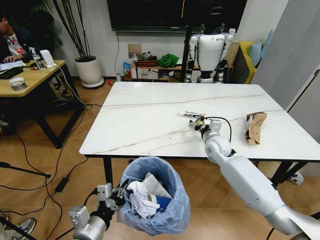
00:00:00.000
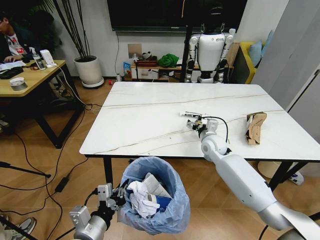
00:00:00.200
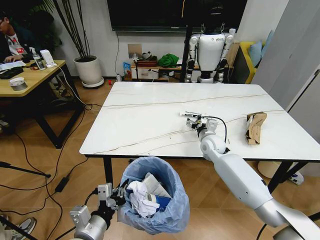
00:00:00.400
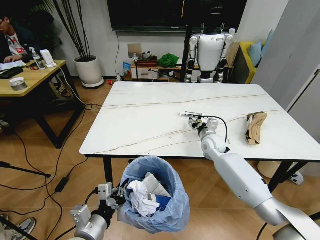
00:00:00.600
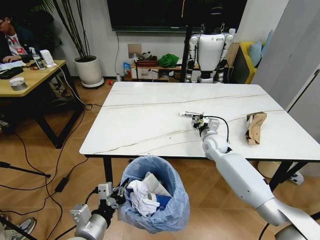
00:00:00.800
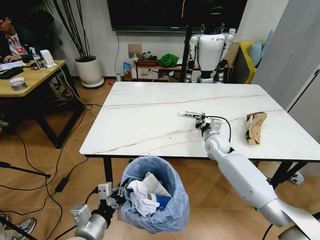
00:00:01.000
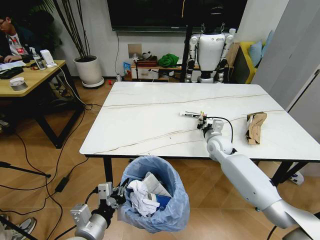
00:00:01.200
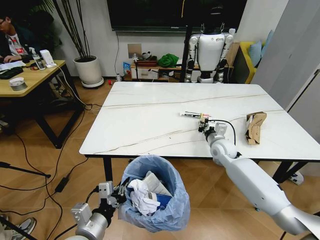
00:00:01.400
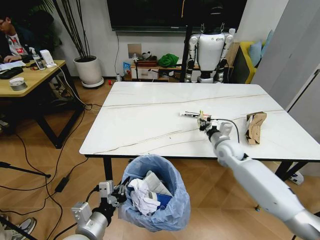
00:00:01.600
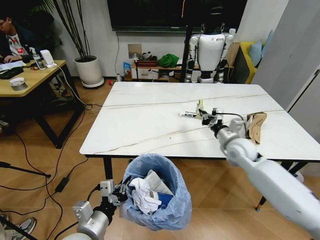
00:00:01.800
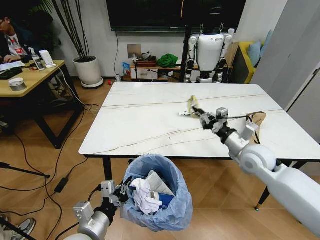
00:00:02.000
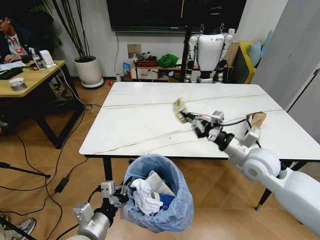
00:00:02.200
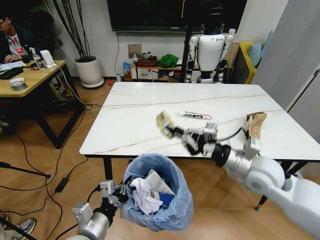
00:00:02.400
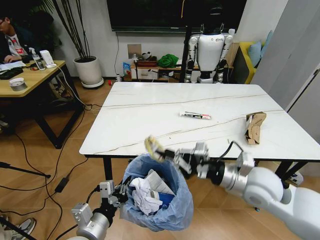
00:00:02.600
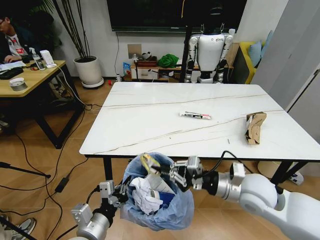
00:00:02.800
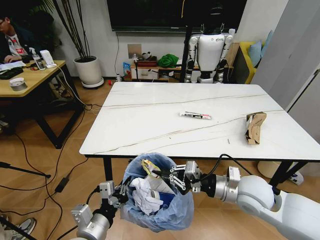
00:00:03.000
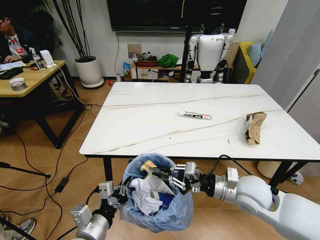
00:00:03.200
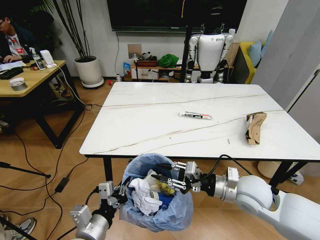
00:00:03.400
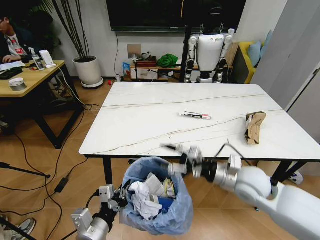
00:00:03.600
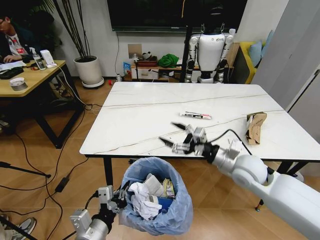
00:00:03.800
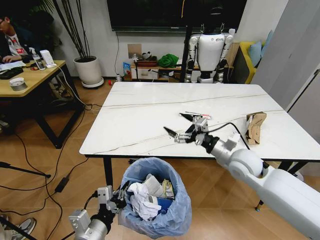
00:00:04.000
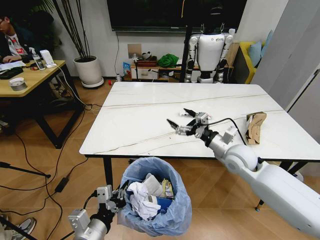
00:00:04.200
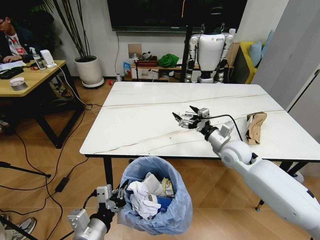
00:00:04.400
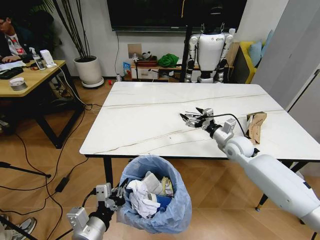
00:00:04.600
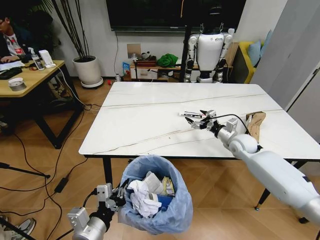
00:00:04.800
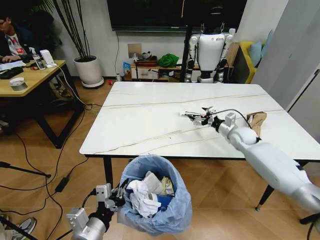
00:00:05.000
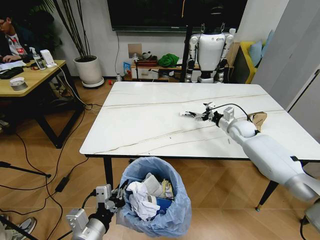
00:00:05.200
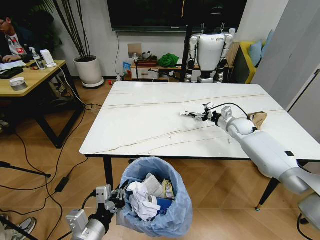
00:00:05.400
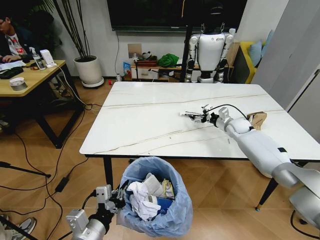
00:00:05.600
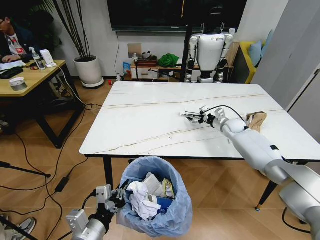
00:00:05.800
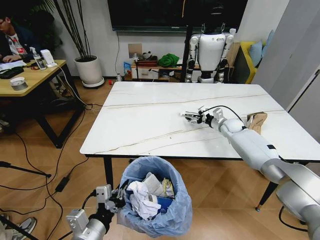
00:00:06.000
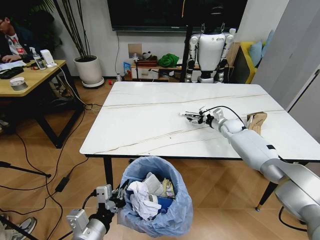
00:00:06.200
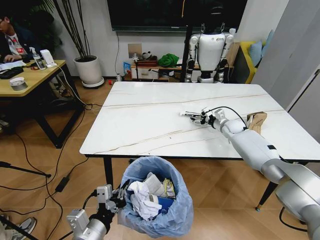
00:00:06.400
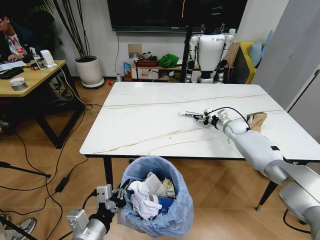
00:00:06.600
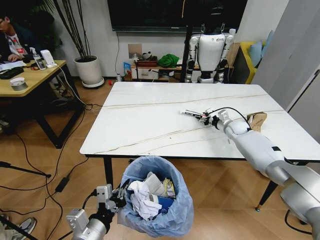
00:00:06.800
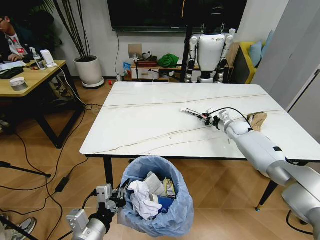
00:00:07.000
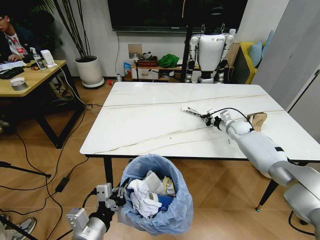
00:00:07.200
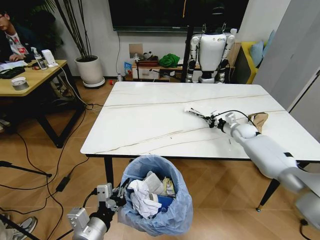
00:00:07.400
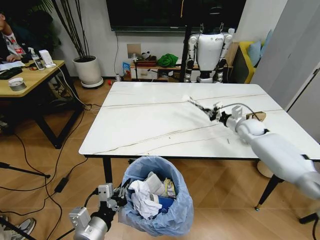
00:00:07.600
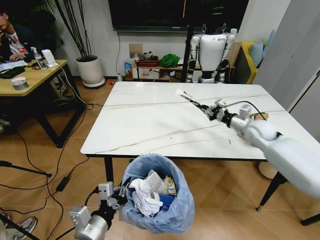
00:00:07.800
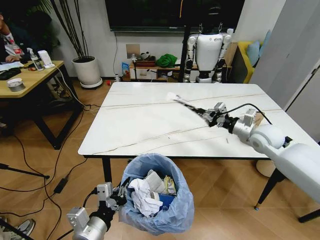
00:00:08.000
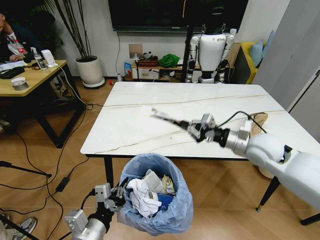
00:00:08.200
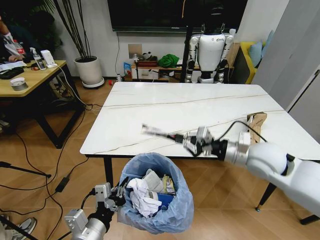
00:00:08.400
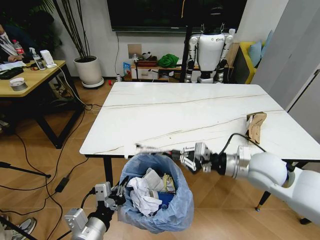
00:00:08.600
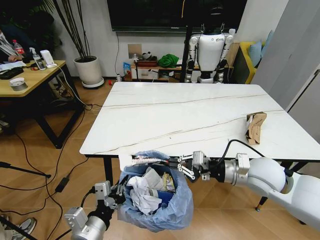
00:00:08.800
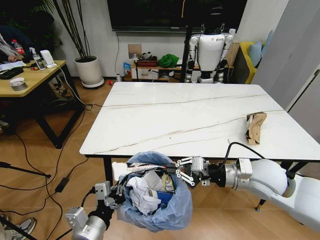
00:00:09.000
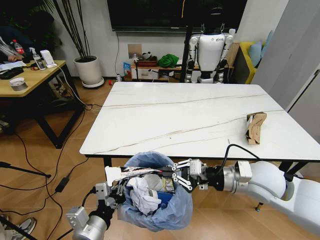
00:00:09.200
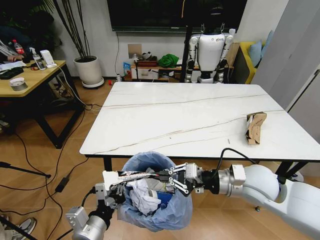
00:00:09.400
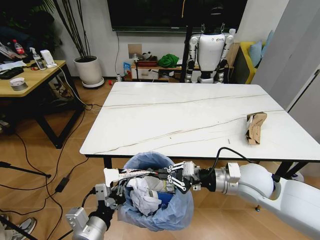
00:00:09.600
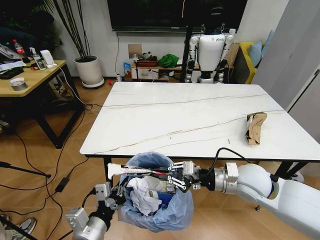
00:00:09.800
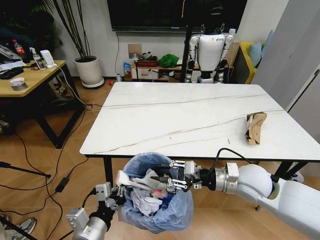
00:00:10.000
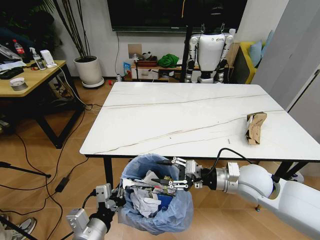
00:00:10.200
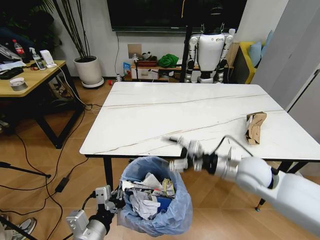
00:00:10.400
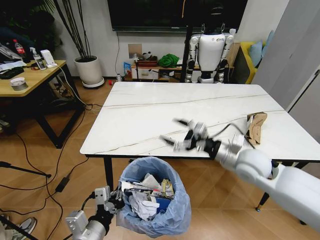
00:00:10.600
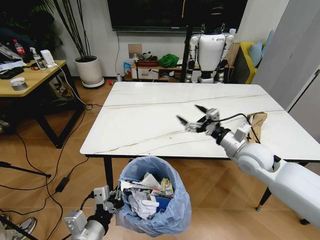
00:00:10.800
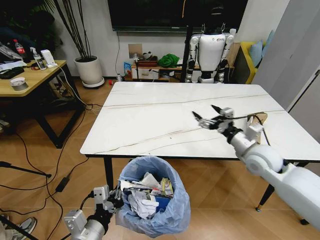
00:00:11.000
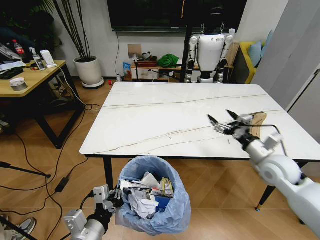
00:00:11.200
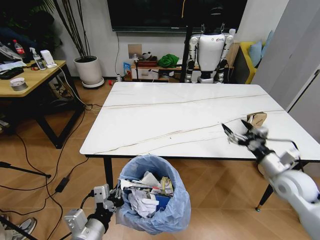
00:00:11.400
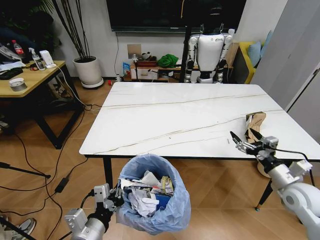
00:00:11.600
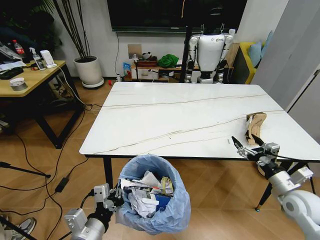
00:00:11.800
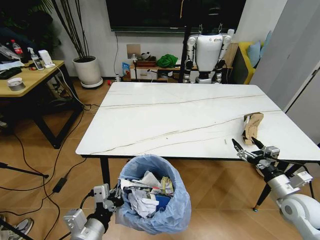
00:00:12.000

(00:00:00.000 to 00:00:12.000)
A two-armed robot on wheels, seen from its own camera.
Task of the whole recording: Pick up the trash bin and place the trash from the table into it.
00:00:00.000 - 00:00:01.600: The right gripper ends up roughly 5 cm from where it was, and closes up.
00:00:01.600 - 00:00:03.000: The right gripper goes about 20 cm backward.
00:00:03.000 - 00:00:04.400: The right gripper goes approximately 15 cm forward, and opens.
00:00:04.400 - 00:00:06.000: The right gripper goes approximately 20 cm forward and to the right.
00:00:06.000 - 00:00:07.600: The right gripper heads backward, covering approximately 5 cm, and closes up.
00:00:07.600 - 00:00:09.000: The right gripper is displaced backward and to the left by about 30 cm.
00:00:09.000 - 00:00:10.400: The right gripper opens its fingers.
00:00:10.400 - 00:00:12.000: The right gripper goes about 20 cm to the right and downward.

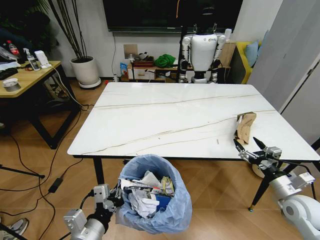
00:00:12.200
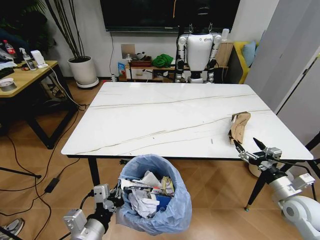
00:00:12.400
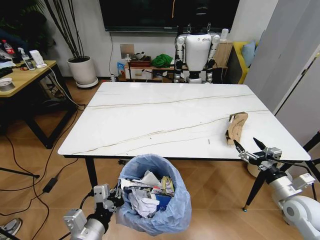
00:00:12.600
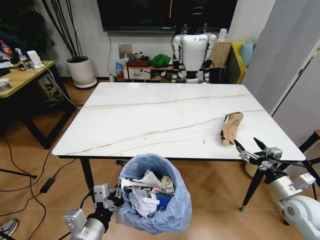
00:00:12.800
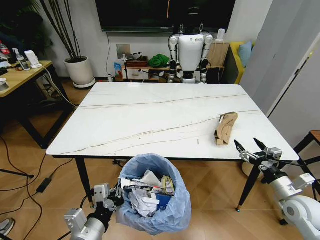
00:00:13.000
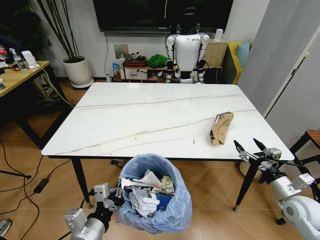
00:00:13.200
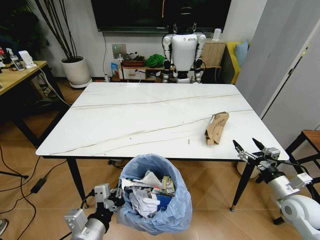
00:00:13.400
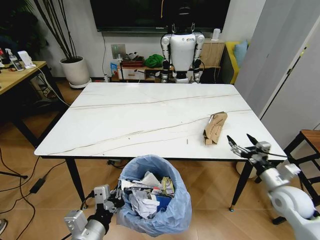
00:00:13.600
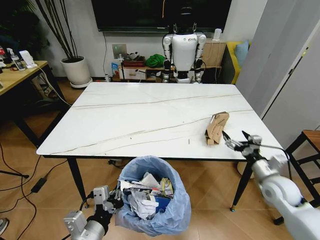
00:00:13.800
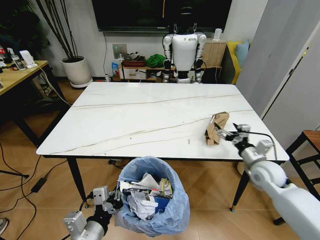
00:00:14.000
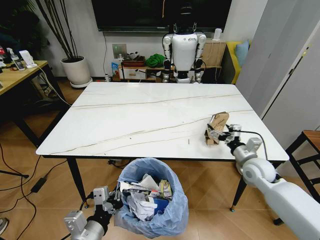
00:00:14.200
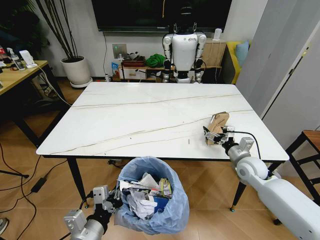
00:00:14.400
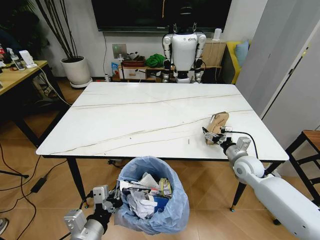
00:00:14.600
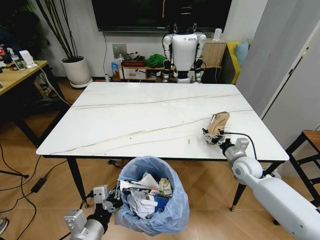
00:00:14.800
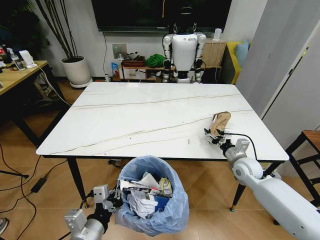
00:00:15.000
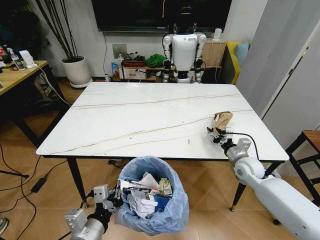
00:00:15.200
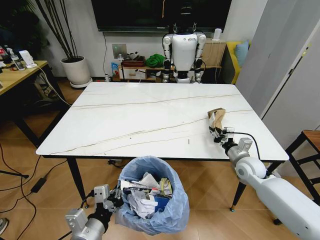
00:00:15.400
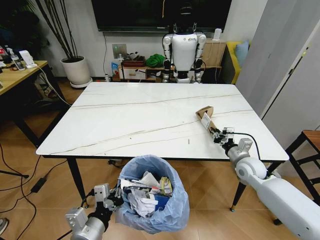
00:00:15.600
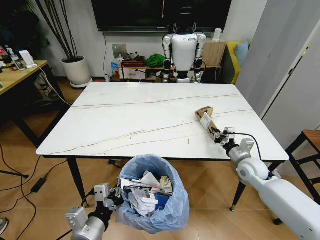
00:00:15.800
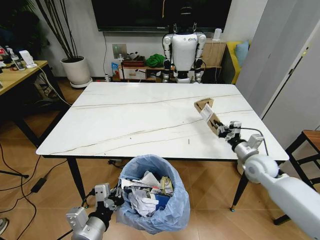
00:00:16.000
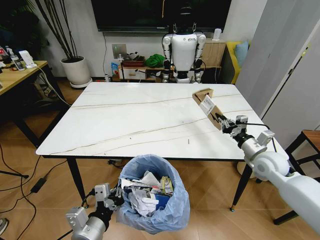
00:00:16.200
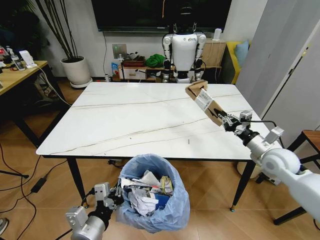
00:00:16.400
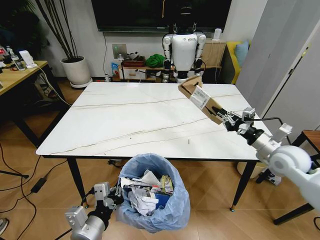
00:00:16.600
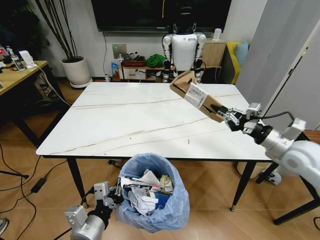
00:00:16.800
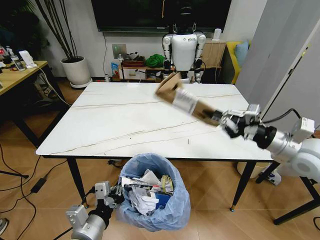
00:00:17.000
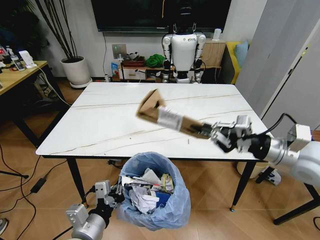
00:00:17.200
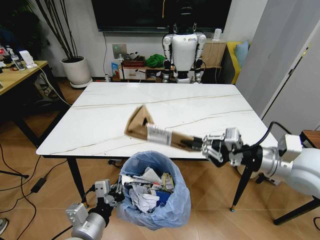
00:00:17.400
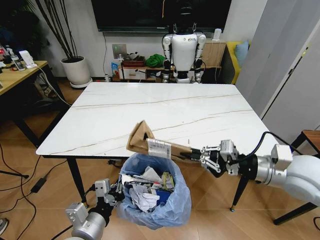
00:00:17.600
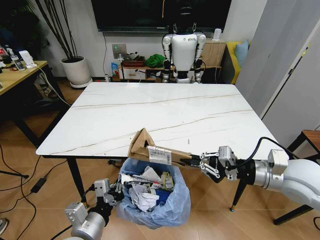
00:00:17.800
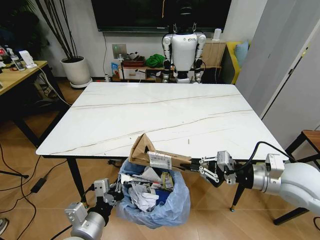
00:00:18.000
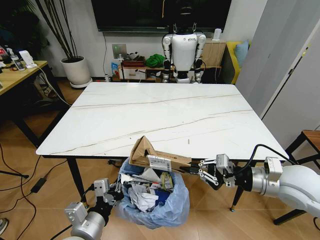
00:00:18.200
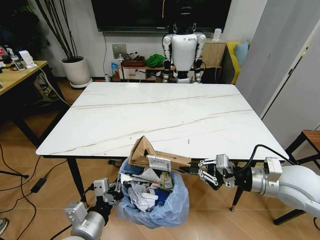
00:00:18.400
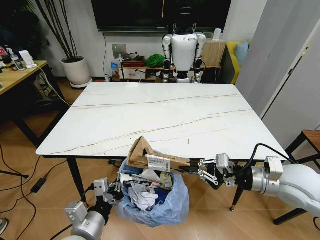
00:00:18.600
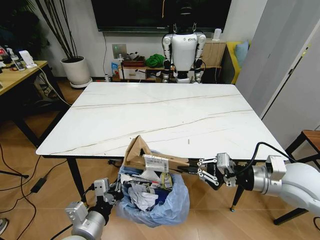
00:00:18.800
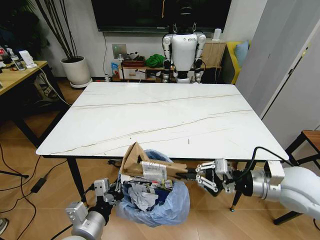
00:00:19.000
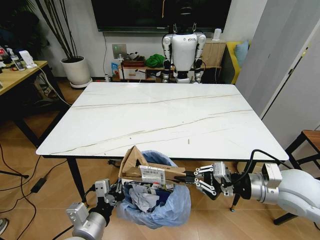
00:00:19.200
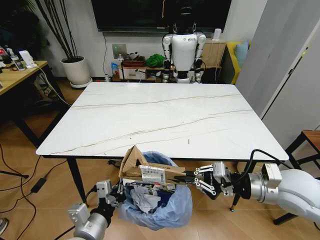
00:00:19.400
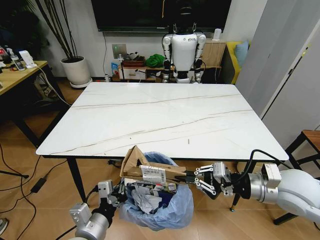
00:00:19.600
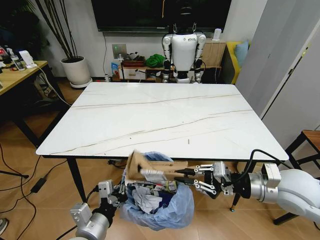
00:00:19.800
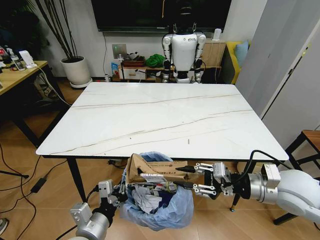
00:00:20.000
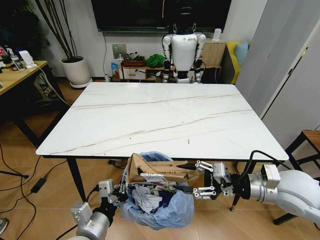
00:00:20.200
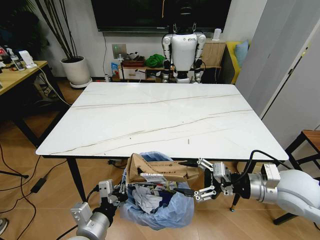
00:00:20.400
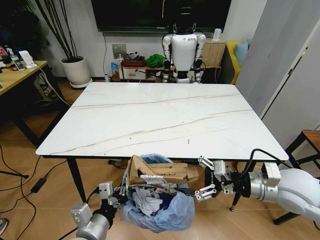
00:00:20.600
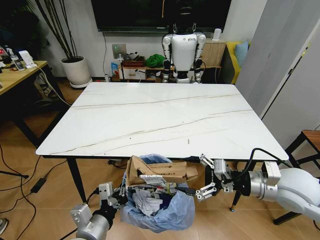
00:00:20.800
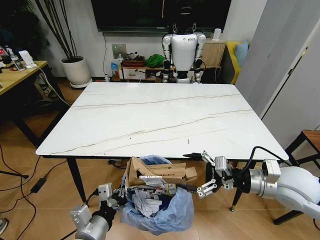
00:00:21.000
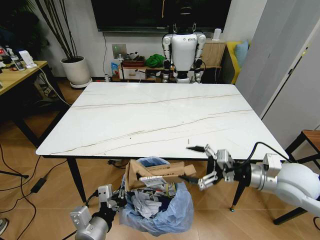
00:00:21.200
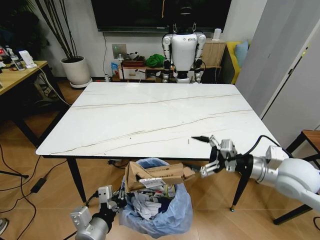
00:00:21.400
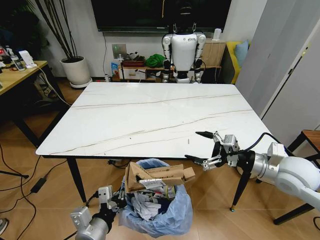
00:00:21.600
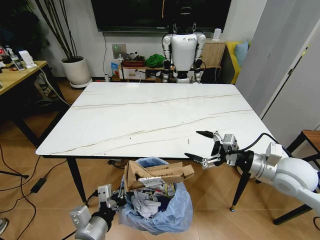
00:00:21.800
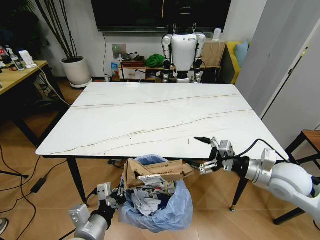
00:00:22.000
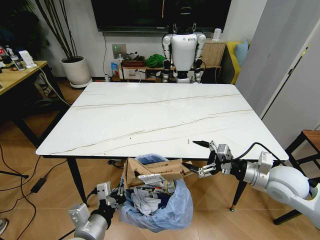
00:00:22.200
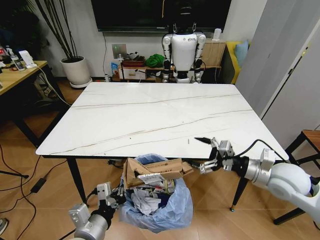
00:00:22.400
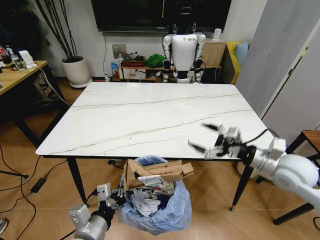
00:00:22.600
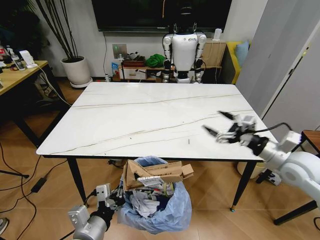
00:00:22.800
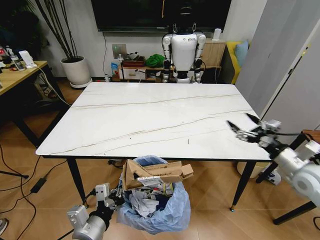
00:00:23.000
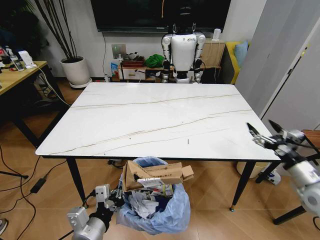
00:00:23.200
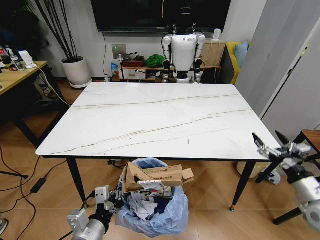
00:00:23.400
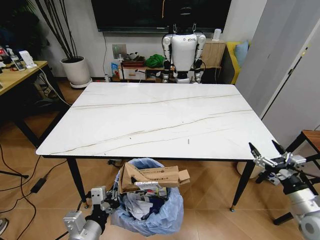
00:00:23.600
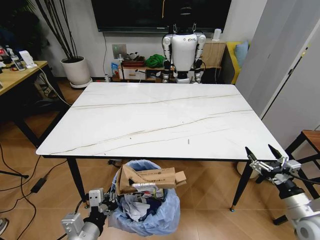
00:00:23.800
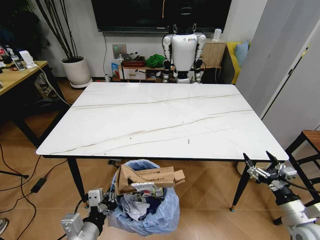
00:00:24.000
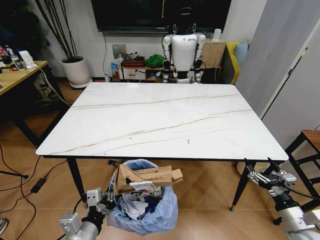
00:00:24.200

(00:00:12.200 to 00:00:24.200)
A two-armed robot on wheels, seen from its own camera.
Task of the whole recording: Pick up the trash bin and place the trash from the table into it.
00:00:12.200 - 00:00:13.800: The right gripper moves forward, approximately 5 cm.
00:00:13.800 - 00:00:15.200: The right gripper heads forward and to the left, covering about 10 cm, and closes up.
00:00:15.200 - 00:00:16.600: The right gripper travels upward and to the right by roughly 15 cm, and closes.
00:00:16.600 - 00:00:18.200: The right gripper heads backward and to the left, covering roughly 10 cm, and moves some 10 cm upward and comes back.
00:00:18.200 - 00:00:19.800: The grippers move only a little.
00:00:19.800 - 00:00:21.200: The right gripper opens its fingers.
00:00:21.200 - 00:00:22.600: There are only small adjustments of the grippers.
00:00:22.600 - 00:00:24.200: The right gripper travels downward and backward by approximately 20 cm.
